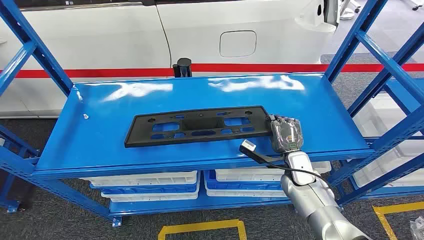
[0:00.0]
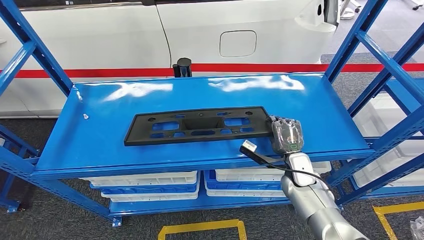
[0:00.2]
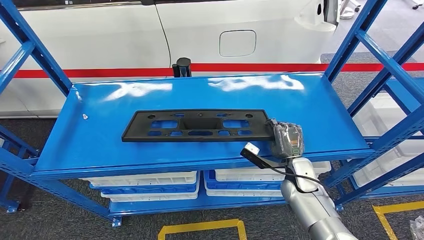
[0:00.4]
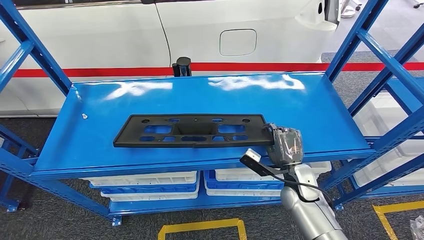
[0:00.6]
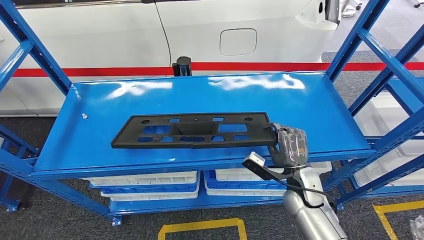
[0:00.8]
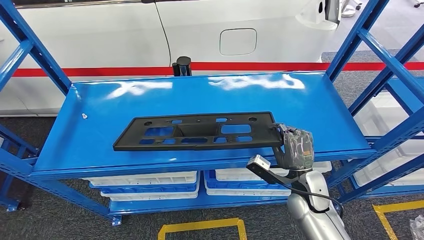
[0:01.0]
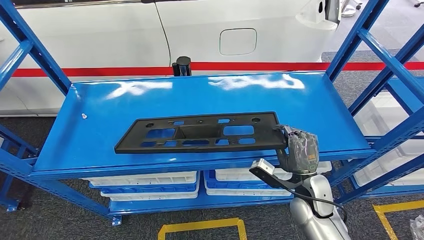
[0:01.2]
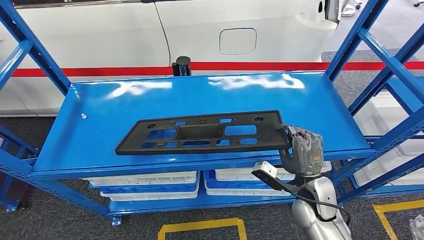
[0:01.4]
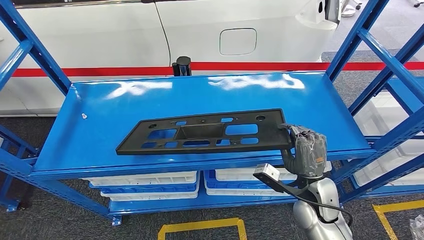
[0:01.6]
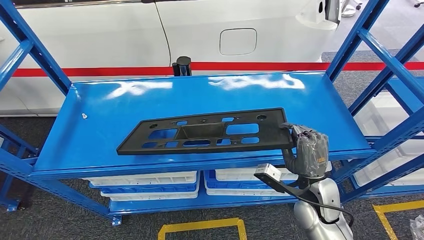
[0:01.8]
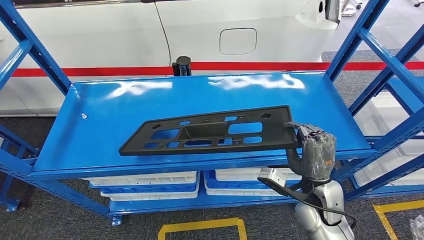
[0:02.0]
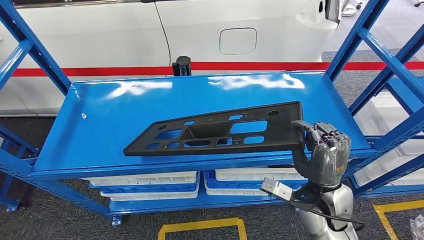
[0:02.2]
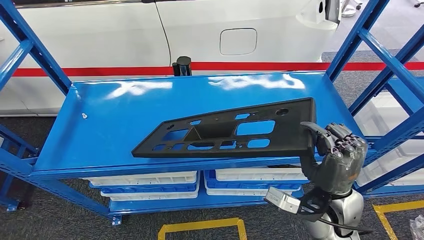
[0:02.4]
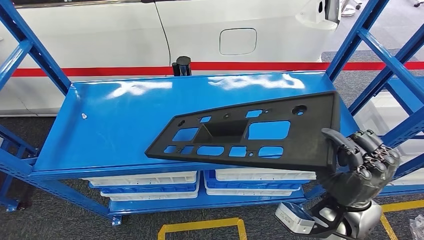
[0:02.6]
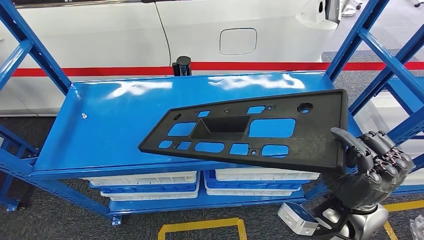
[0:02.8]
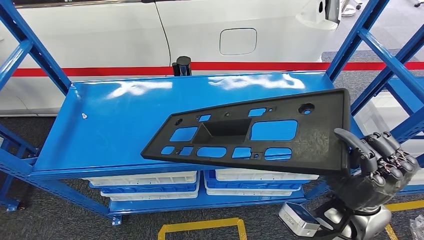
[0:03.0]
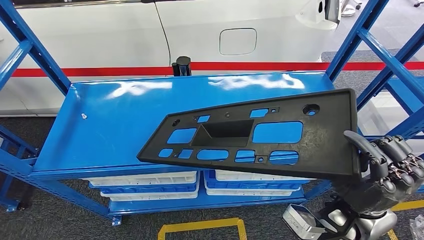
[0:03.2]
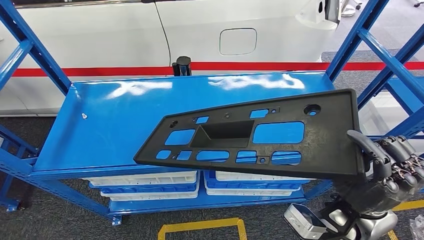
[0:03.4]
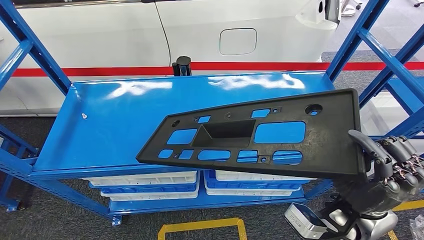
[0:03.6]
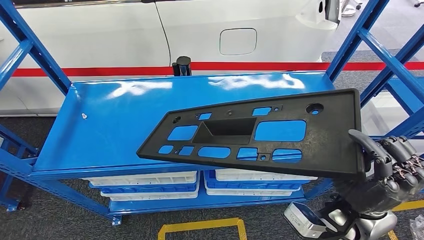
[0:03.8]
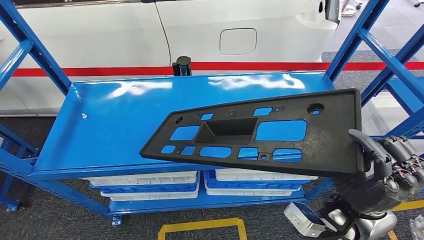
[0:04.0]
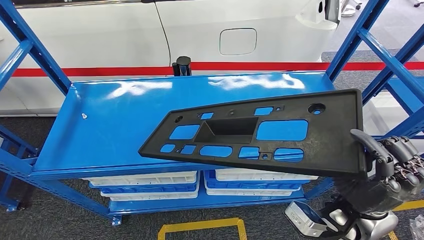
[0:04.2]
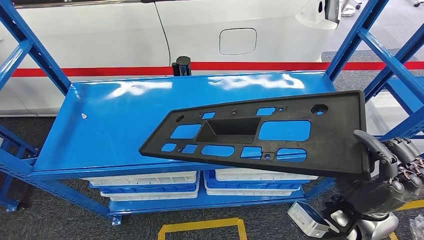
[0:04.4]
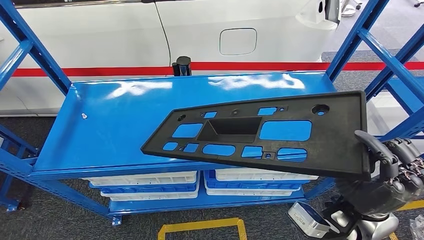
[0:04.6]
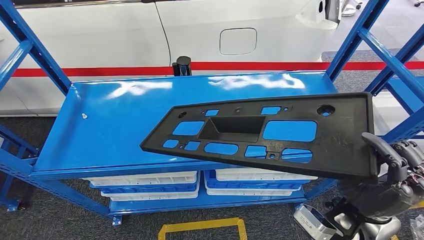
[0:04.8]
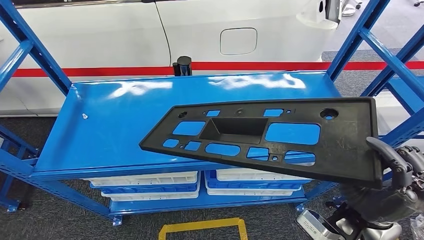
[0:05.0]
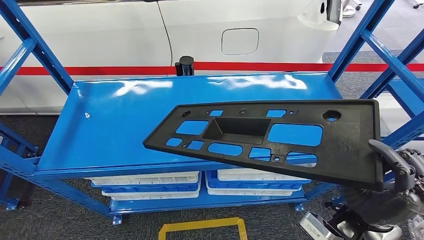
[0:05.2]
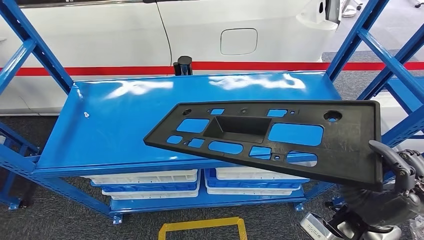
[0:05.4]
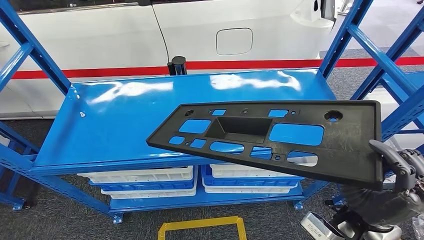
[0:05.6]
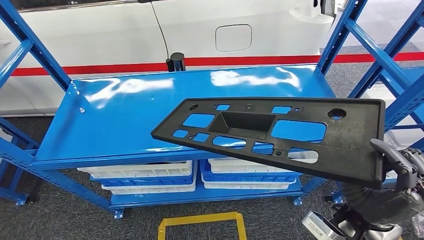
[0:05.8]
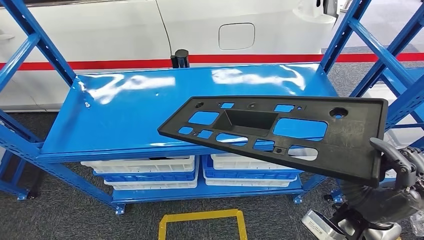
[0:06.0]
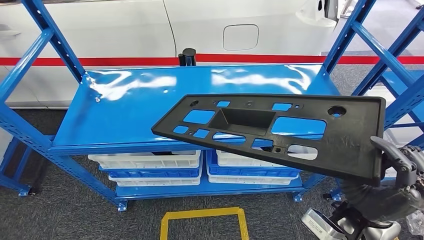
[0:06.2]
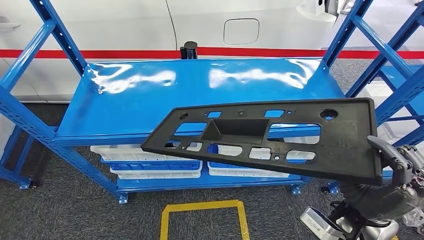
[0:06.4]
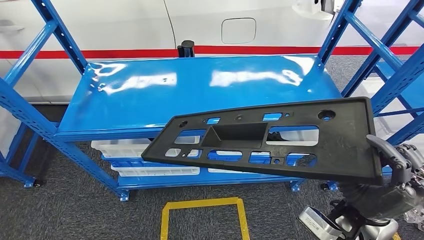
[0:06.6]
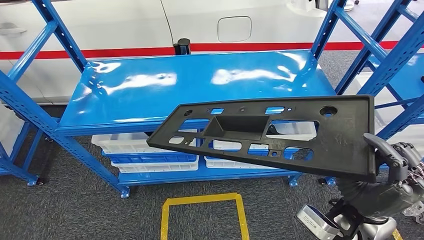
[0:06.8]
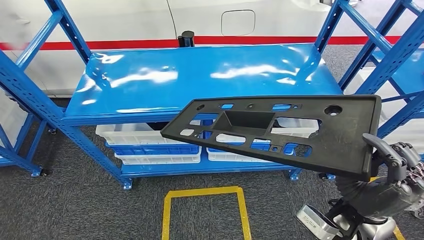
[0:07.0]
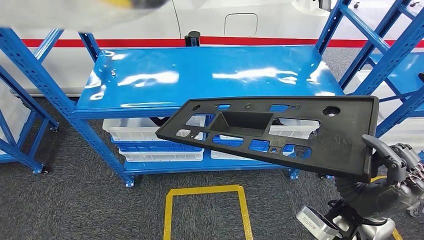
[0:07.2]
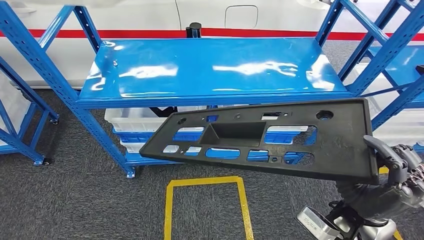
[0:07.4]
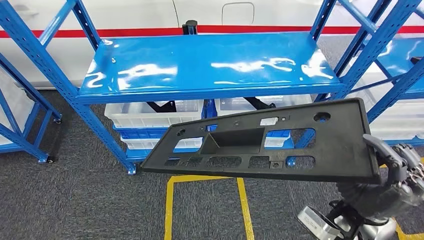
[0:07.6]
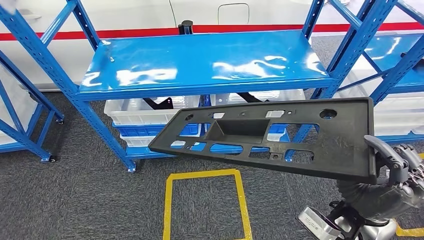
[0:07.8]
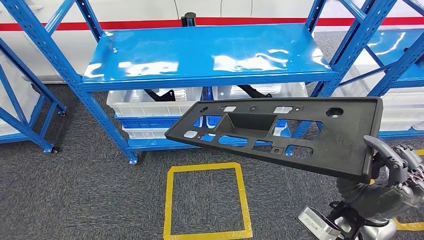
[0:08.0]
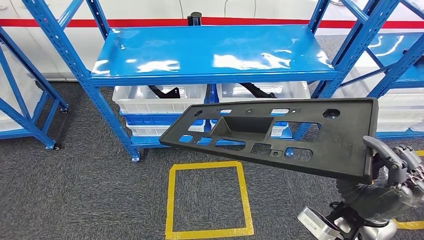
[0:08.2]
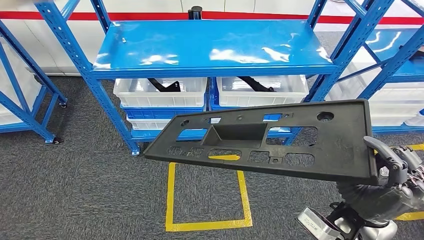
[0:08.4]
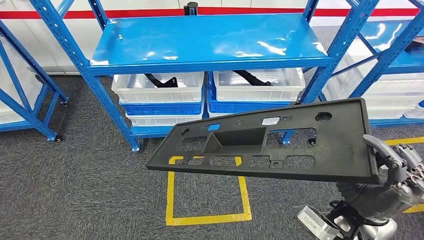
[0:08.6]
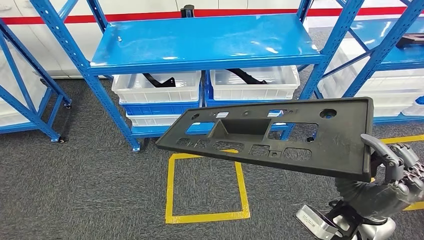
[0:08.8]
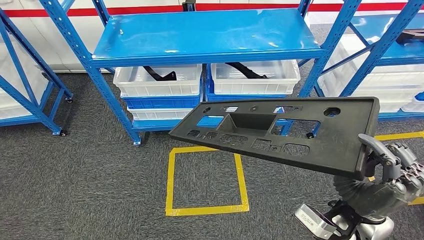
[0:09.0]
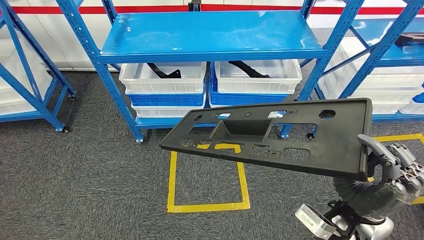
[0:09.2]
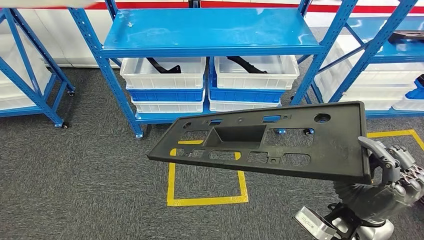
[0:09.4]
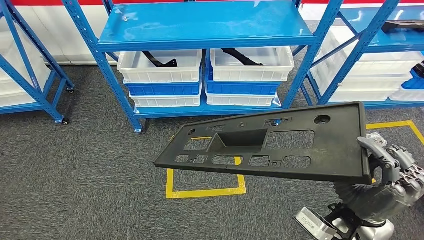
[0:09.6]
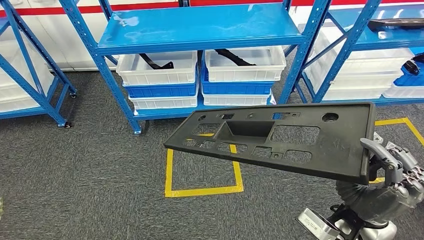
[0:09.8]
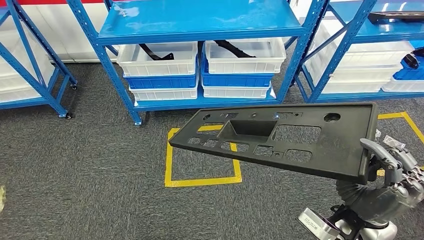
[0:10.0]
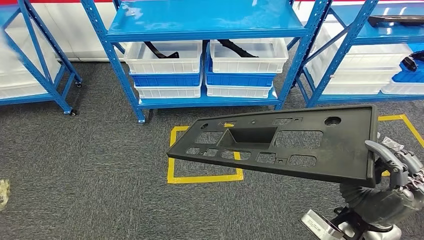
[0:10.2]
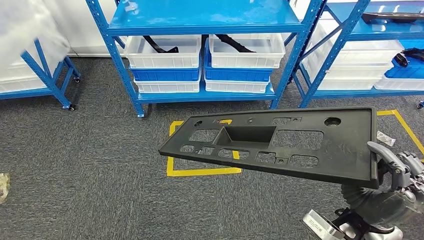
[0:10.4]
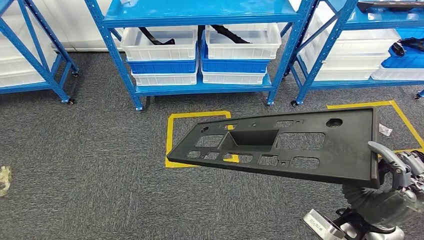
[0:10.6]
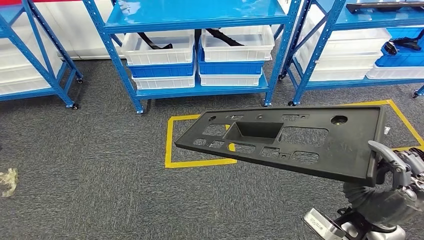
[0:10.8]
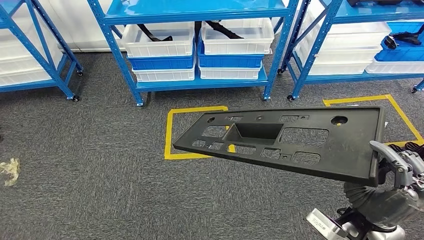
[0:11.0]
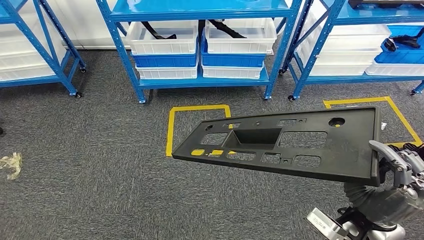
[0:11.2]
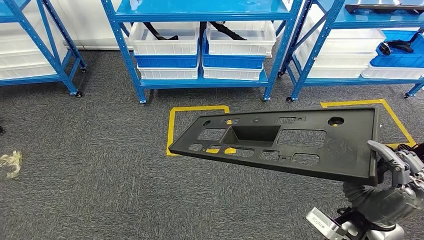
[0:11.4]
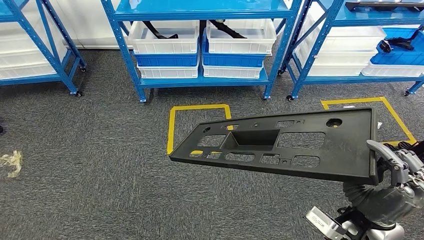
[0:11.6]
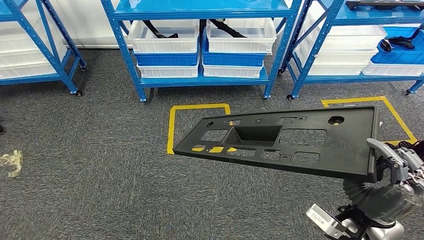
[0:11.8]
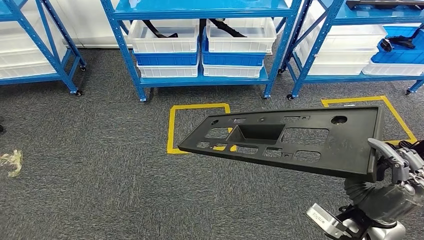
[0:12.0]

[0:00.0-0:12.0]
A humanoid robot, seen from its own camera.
Step, 0:00.0 to 0:05.4: Pick up the large material from the shelf.
0:01.6 to 0:03.0: The right hand goes some 10 cm upward and backward.

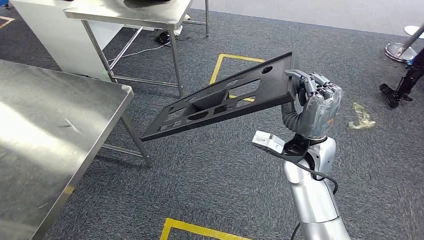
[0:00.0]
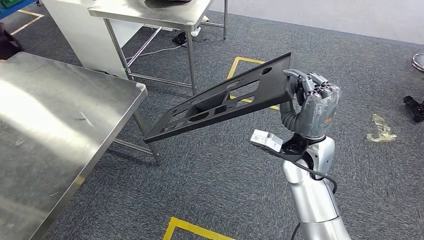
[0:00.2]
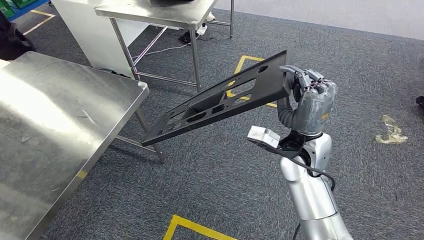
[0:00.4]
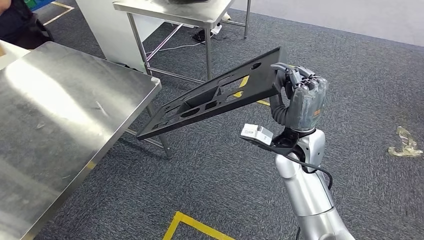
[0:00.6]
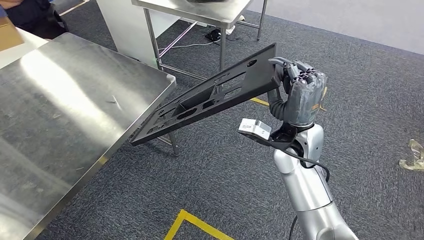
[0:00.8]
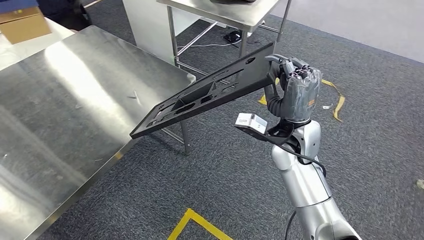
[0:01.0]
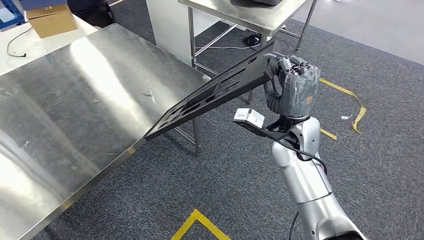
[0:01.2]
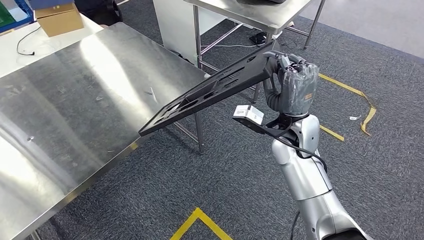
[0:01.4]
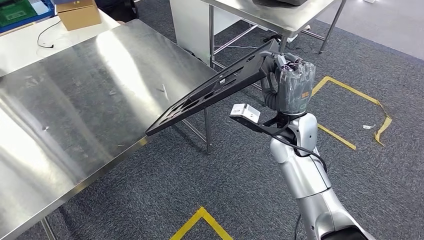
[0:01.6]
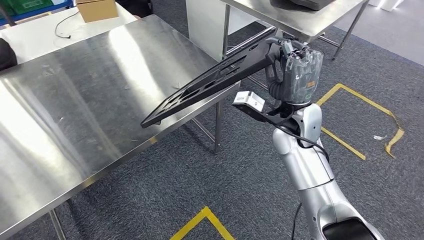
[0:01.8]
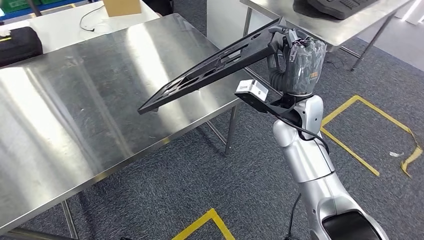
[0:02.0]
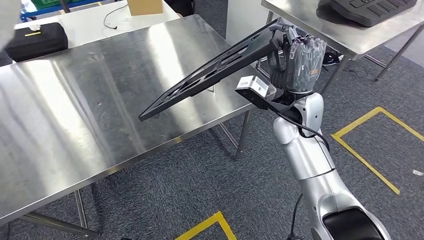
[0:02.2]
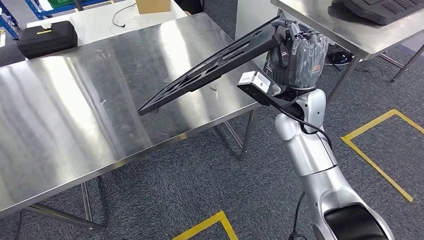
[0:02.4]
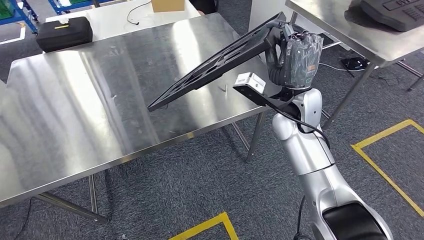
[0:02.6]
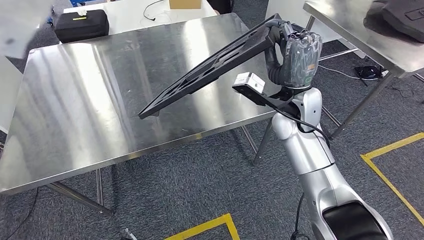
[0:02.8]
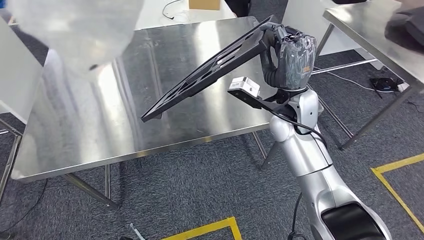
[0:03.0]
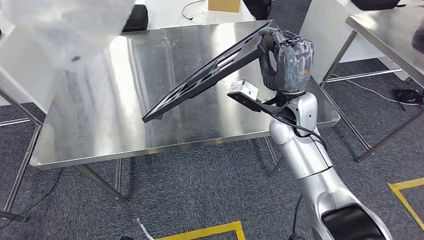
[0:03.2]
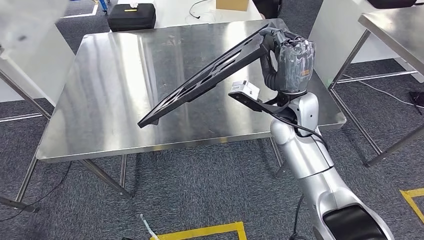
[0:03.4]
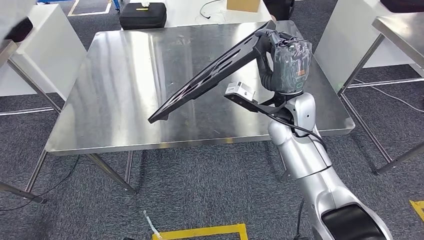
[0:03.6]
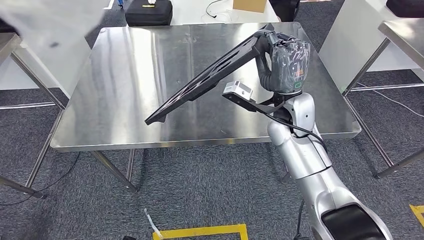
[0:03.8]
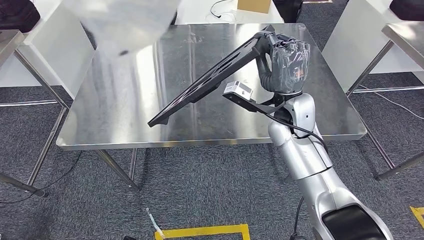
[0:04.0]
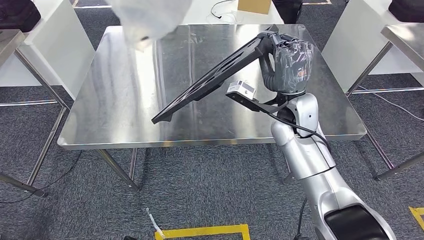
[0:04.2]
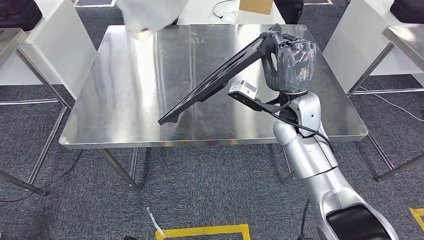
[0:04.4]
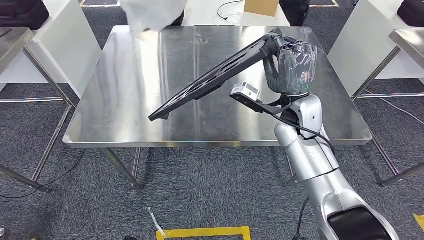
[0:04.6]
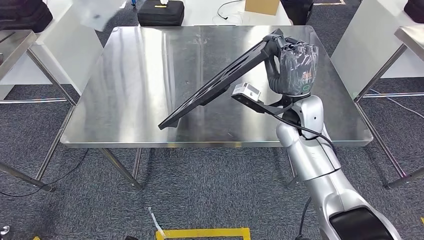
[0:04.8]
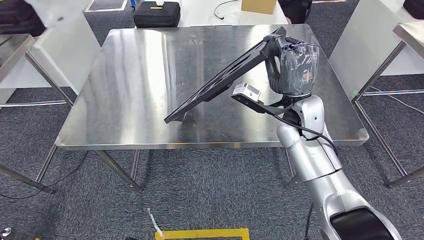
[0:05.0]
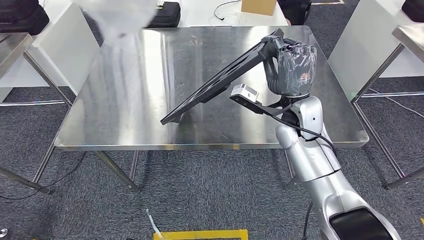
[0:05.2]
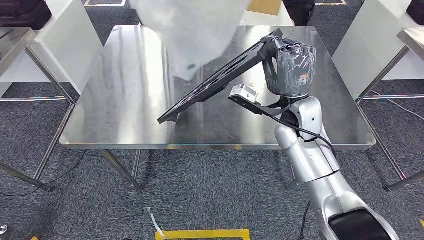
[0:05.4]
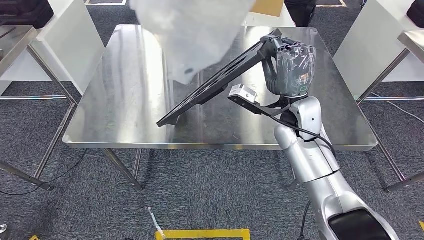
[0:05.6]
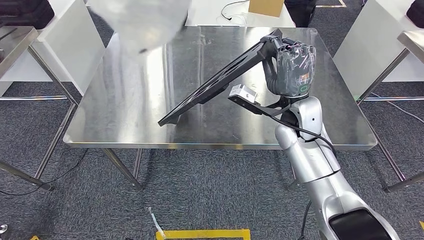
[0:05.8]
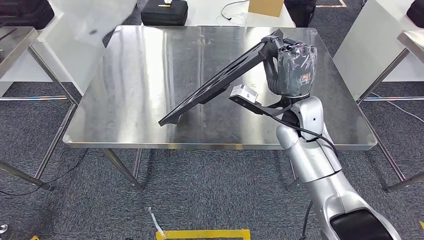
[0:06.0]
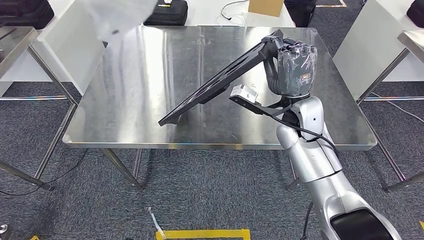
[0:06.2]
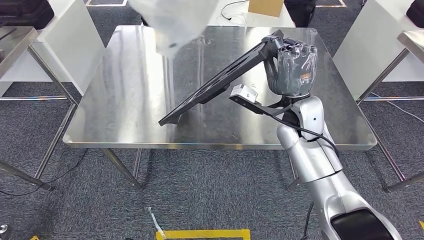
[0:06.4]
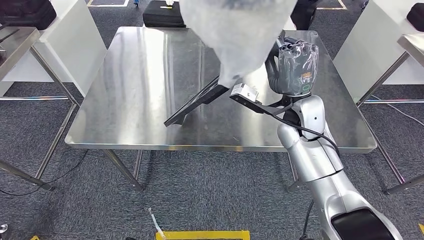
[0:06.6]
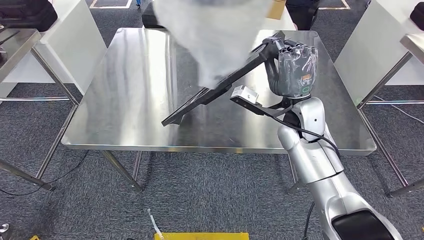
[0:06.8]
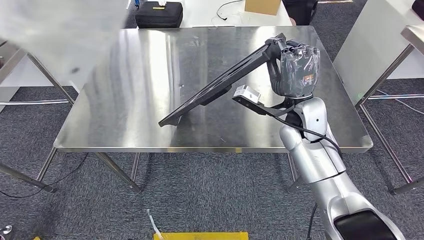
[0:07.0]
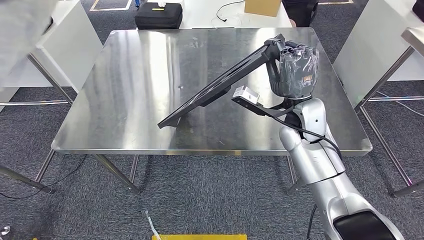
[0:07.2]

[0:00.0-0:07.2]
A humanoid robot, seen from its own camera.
Step, 0:00.0 to 0:03.6: Move the large material to the workbench.
